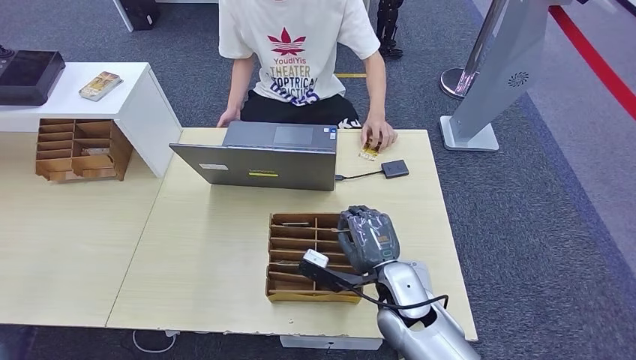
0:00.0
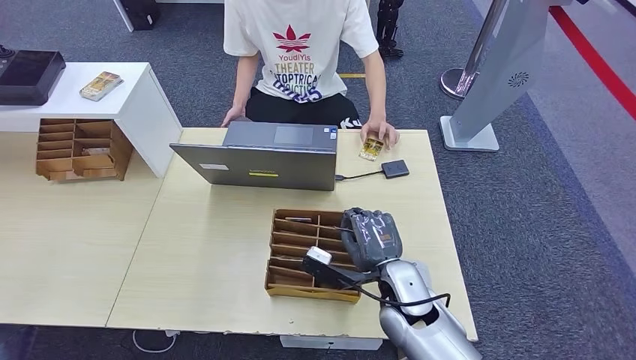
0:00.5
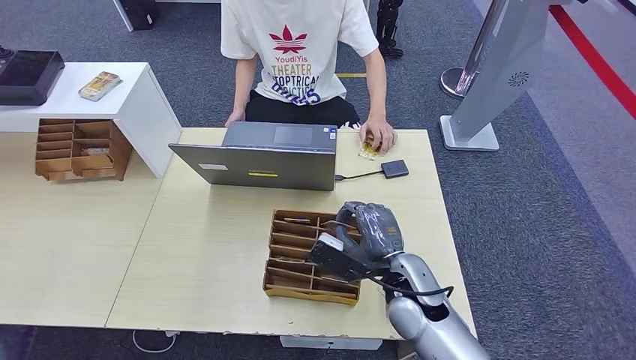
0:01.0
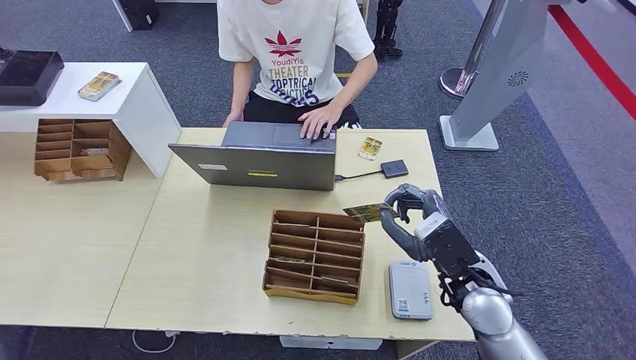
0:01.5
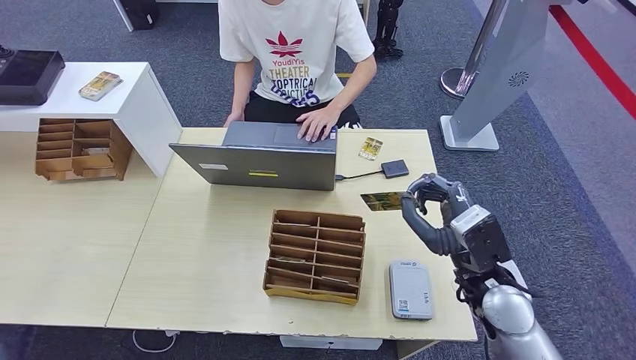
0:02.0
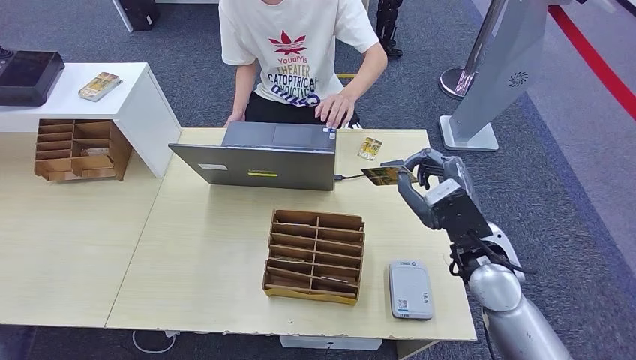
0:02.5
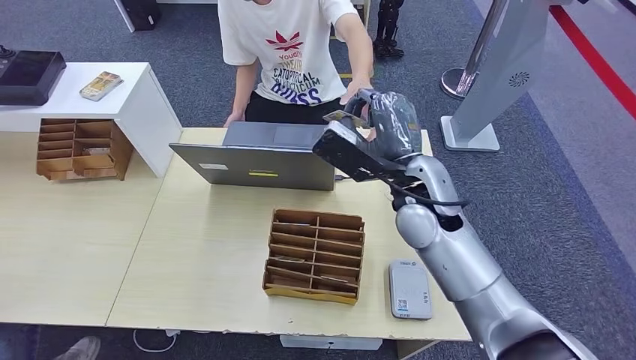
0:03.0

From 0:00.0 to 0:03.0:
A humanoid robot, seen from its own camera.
Step, from 0:00.0 to 0:03.0: Hand the room key to the person.
From 0:00.0 to 0:01.5: The right hand heads to the right and upward, covering some 10 cm.
From 0:01.5 to 0:03.0: The right hand moves upward, forward and to the left, approximately 15 cm.
